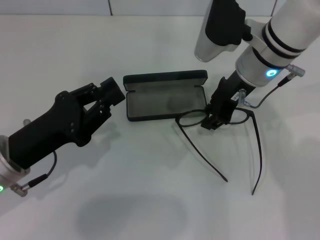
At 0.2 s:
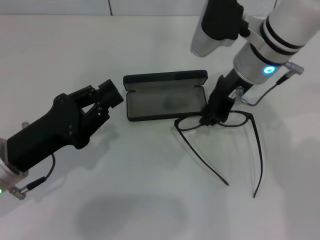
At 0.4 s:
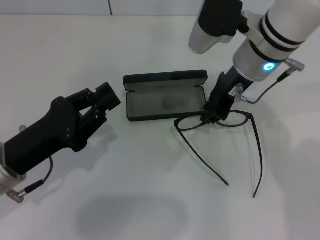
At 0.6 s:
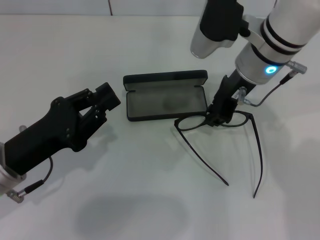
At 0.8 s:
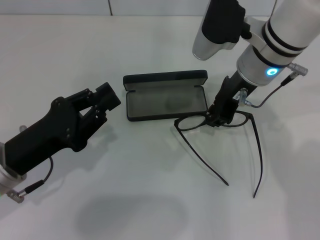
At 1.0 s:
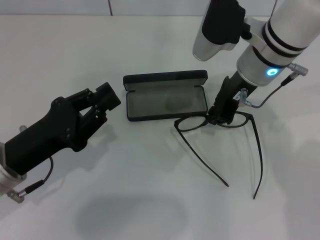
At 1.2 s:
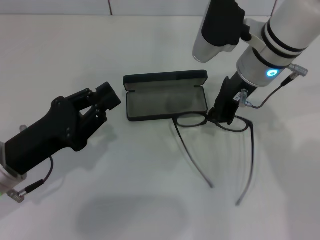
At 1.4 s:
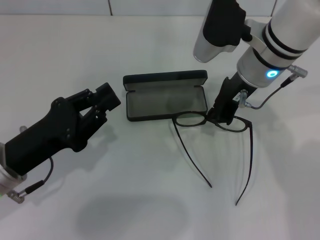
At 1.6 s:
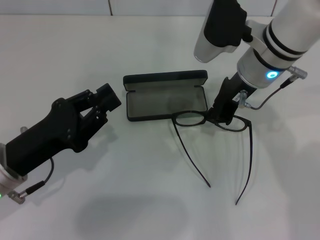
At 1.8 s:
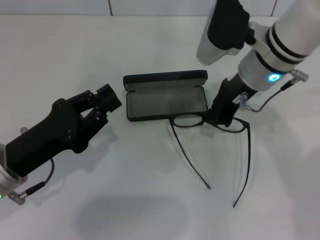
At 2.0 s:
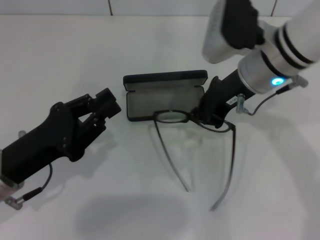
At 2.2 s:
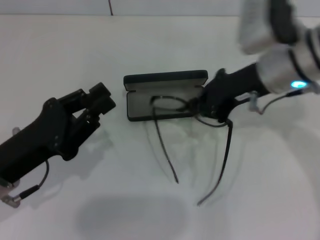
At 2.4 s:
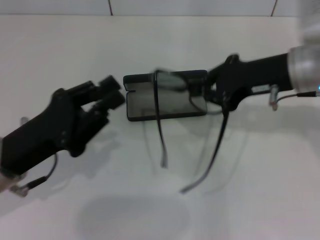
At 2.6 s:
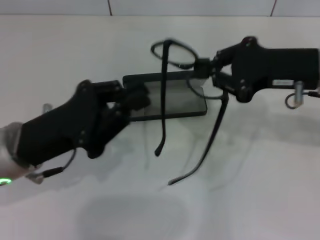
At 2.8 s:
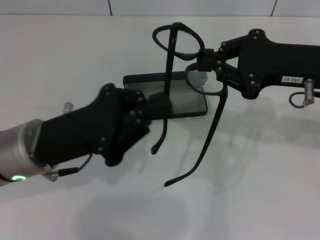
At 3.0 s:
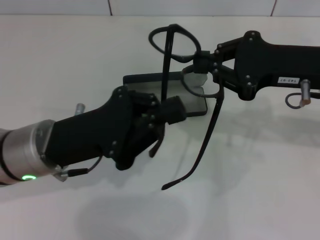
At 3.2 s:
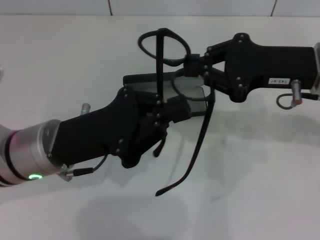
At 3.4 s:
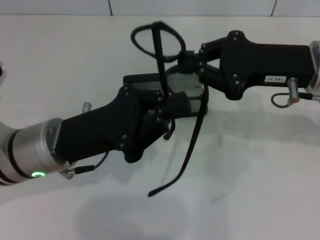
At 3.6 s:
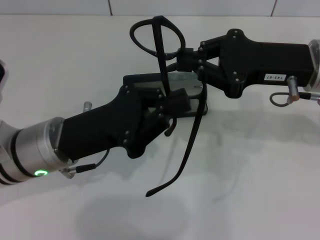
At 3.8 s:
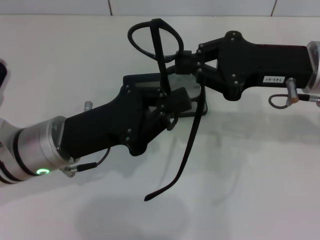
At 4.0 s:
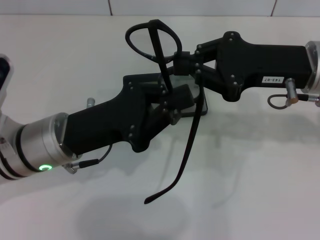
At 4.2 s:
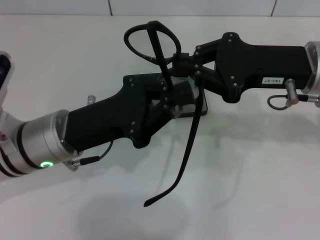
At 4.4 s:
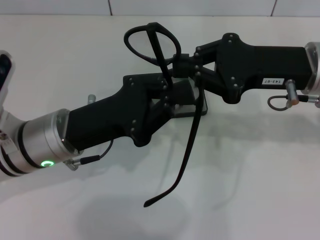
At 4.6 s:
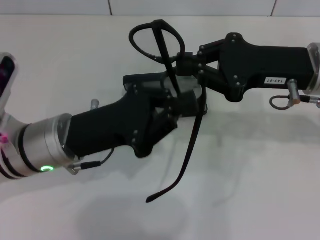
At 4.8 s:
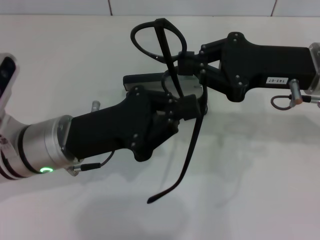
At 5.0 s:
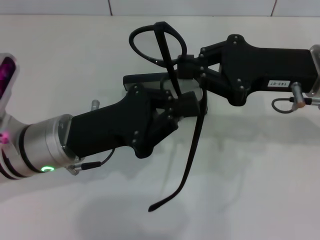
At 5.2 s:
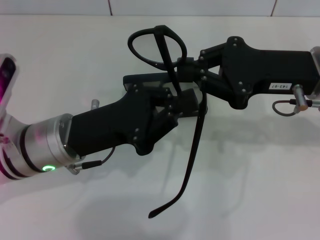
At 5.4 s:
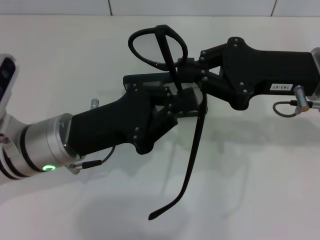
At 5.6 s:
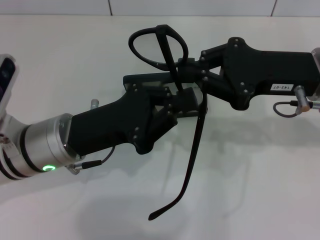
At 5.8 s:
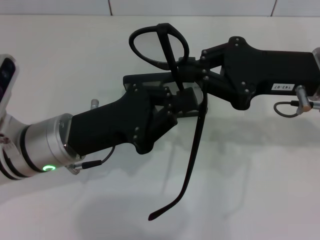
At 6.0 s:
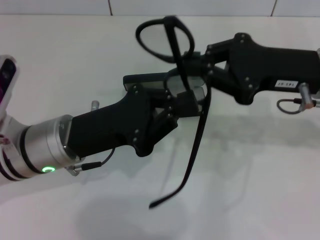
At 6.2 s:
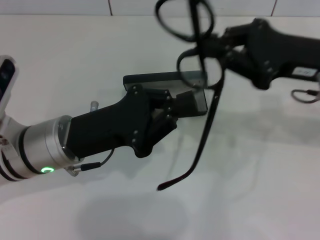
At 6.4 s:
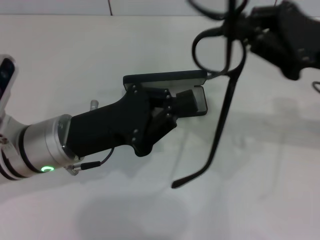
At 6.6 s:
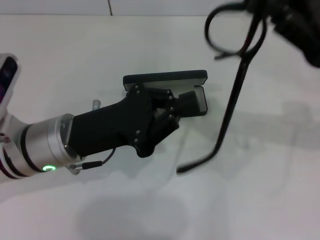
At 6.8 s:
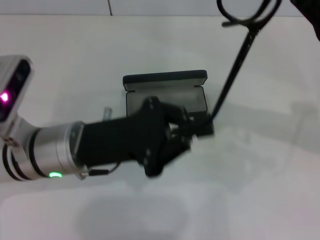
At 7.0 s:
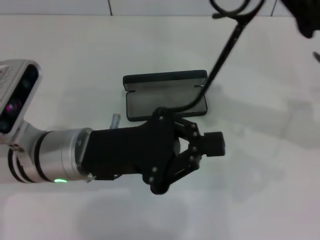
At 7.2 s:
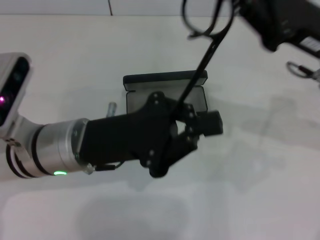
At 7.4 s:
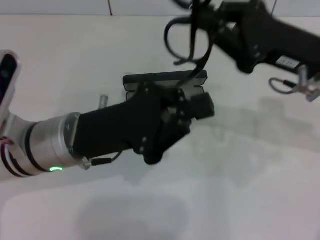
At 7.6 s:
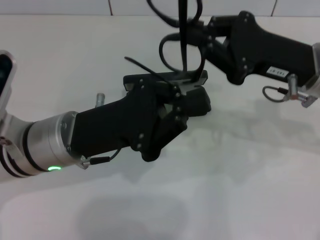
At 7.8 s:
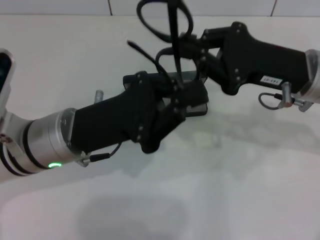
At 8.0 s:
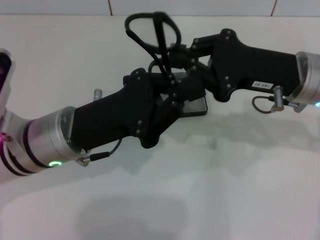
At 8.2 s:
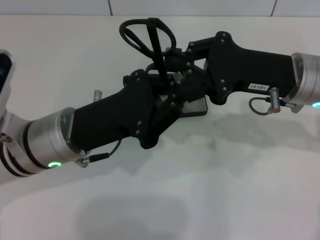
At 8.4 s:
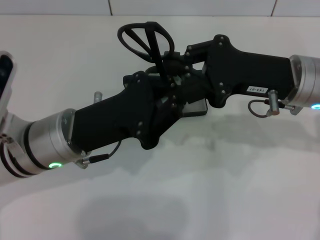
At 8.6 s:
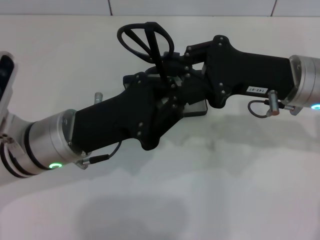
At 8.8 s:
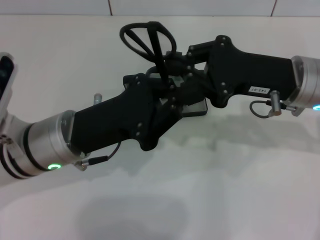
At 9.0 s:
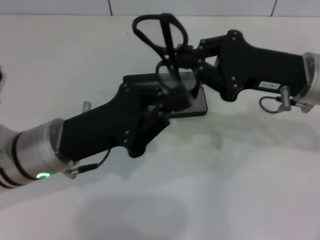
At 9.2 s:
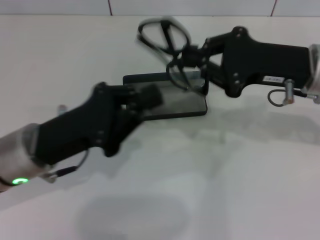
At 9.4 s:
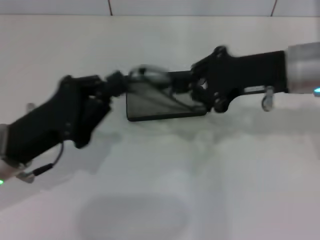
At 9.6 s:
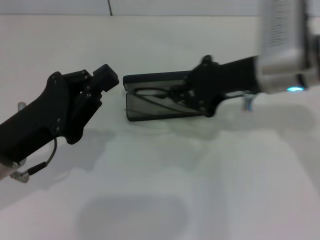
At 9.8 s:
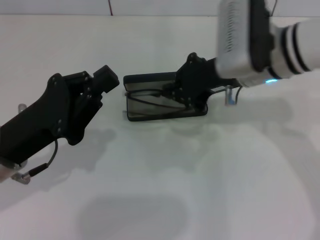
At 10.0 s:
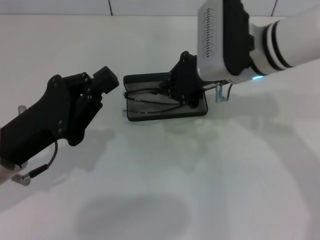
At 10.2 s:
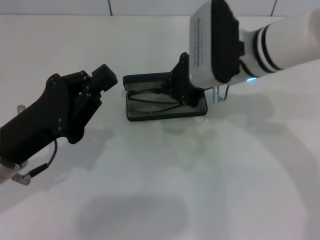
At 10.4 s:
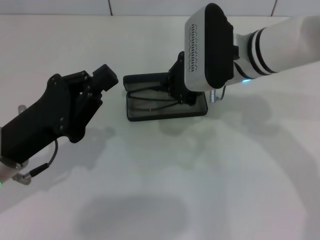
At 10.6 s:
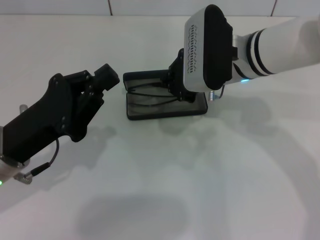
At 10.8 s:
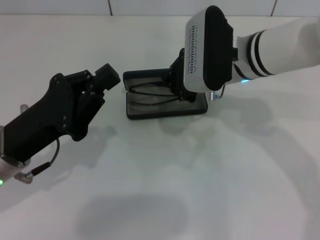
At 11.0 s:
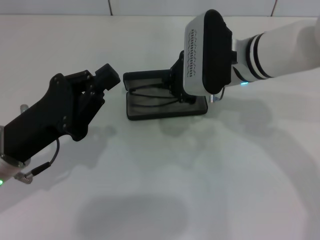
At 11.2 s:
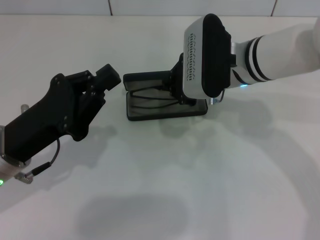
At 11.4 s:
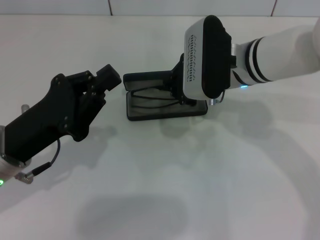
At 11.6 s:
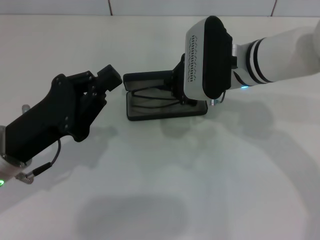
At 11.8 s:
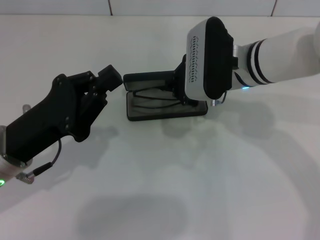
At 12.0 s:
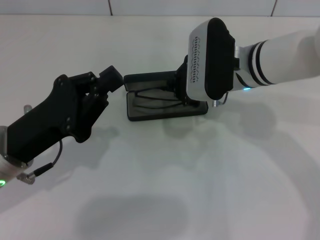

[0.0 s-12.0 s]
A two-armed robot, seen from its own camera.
Step, 1.4 to 8.8 s: Fold the frame with your left hand.
0.0 to 1.6 s: The right gripper closes.
1.6 to 3.0 s: The right gripper is displaced to the right and backward by about 15 cm, while the left gripper shifts roughly 5 cm to the right.
3.0 to 4.4 s: There are only small adjustments of the grippers.
4.4 to 6.0 s: Both grippers stay put.
9.0 to 10.4 s: The left gripper shifts some 5 cm to the left. The right gripper travels to the left by about 10 cm.
10.4 to 12.0 s: There are only small adjustments of the grippers.

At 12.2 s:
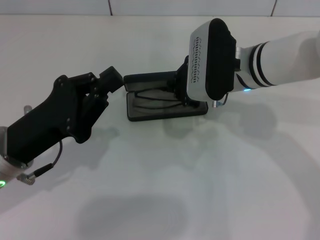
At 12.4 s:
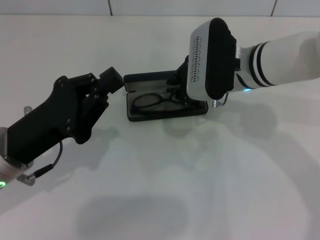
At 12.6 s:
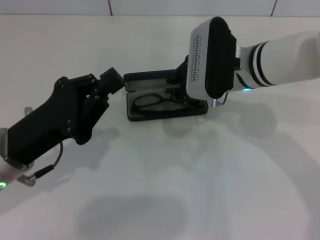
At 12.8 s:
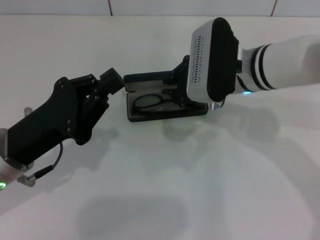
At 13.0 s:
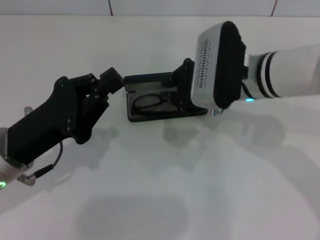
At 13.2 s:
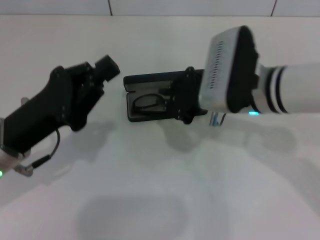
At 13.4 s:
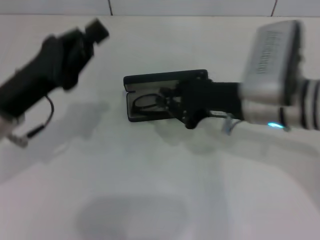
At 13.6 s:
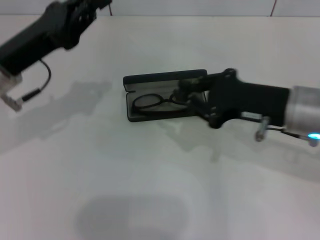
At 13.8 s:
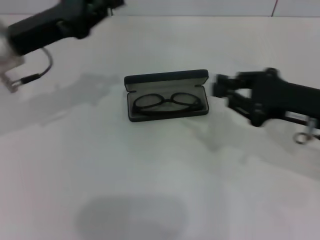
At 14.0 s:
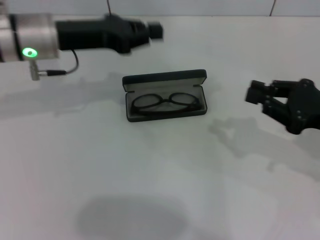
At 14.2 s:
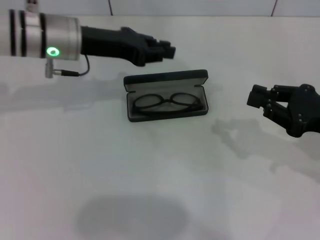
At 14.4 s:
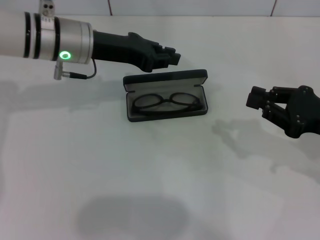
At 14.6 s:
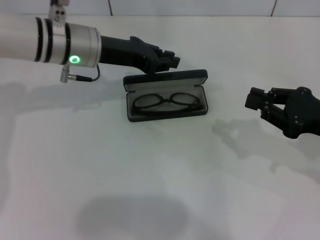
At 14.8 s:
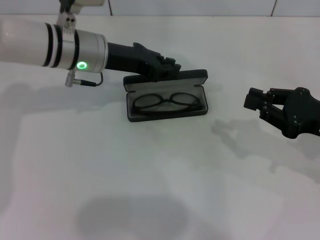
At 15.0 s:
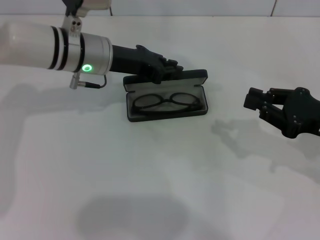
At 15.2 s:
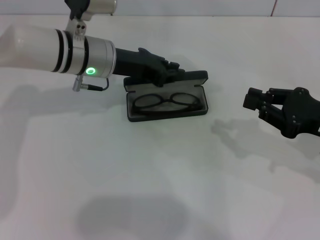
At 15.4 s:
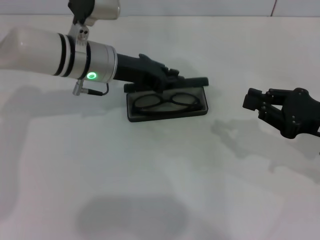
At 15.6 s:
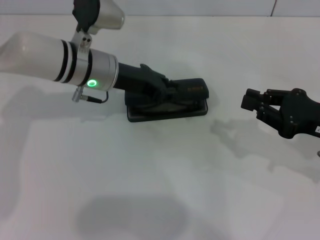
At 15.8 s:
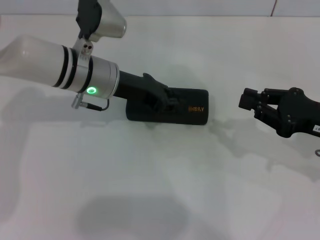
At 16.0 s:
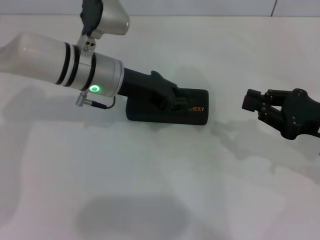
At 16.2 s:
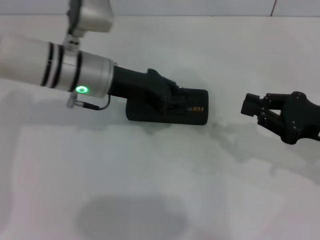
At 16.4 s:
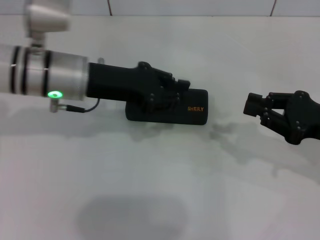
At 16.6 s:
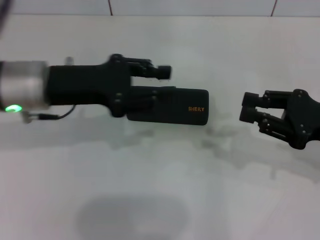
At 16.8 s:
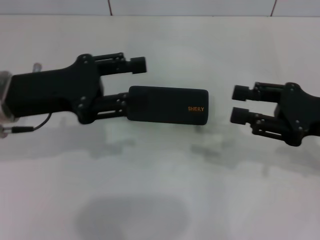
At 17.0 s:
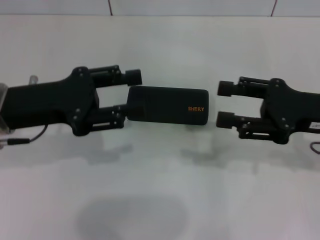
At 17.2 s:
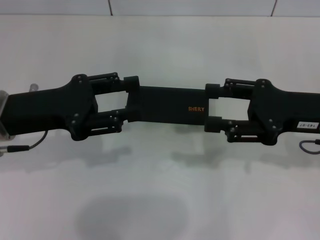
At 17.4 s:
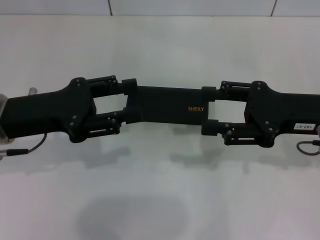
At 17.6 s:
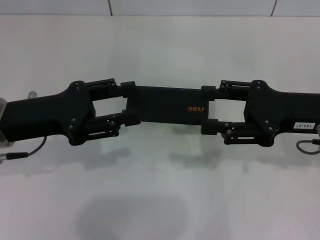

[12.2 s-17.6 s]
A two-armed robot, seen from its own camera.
Step, 12.6 to 15.6 s: Close the glasses case with your left hand.
12.2 to 13.6 s: The right gripper travels to the right and backward by roughly 15 cm; the left gripper goes approximately 10 cm forward and upward.
13.6 to 15.0 s: The left gripper heads to the right and forward, covering some 15 cm; the right gripper heads to the right, covering approximately 10 cm.
15.0 to 16.2 s: The grippers stay close to where they were, moving slightly.
16.2 to 17.6 s: The right gripper moves roughly 5 cm, and opens its fingers. Meanwhile the left gripper shifts roughly 15 cm to the left and backward, and opens up.

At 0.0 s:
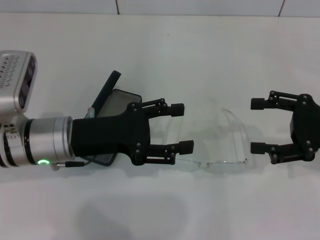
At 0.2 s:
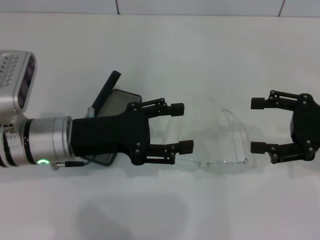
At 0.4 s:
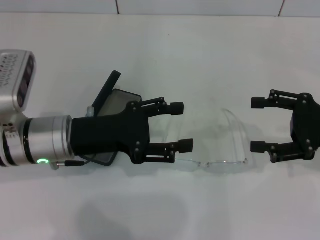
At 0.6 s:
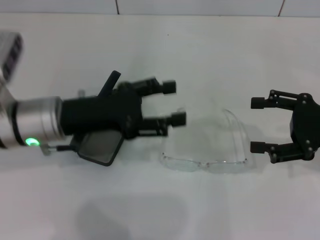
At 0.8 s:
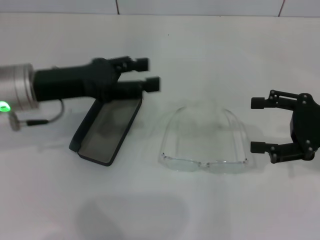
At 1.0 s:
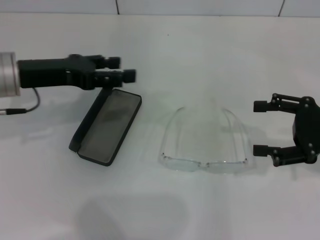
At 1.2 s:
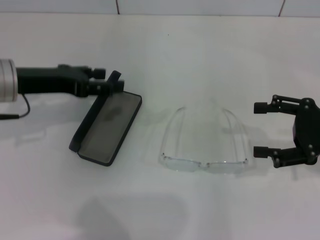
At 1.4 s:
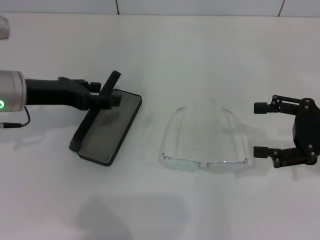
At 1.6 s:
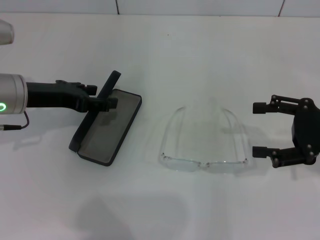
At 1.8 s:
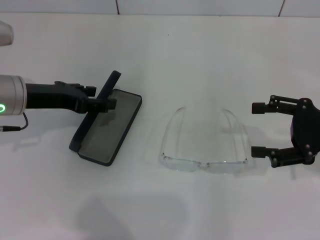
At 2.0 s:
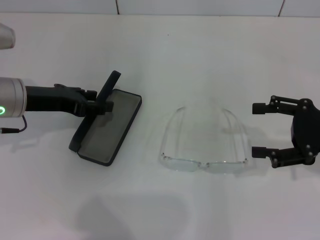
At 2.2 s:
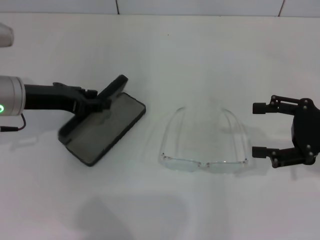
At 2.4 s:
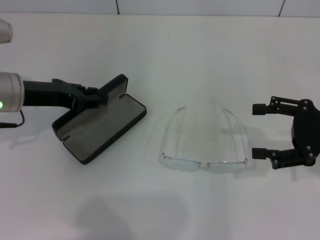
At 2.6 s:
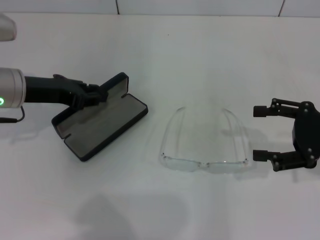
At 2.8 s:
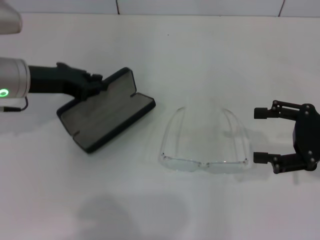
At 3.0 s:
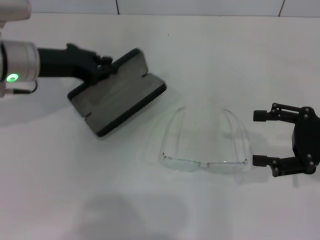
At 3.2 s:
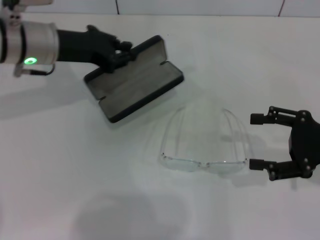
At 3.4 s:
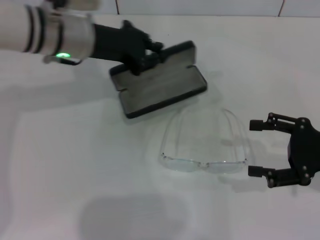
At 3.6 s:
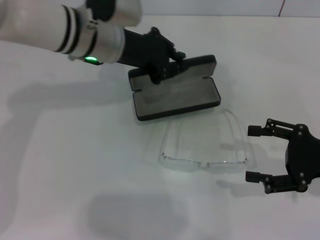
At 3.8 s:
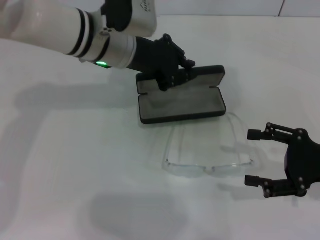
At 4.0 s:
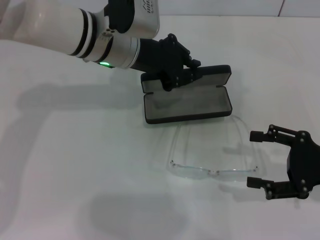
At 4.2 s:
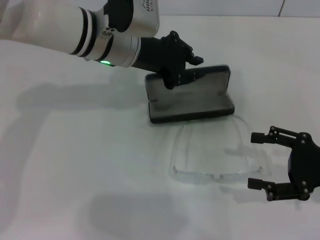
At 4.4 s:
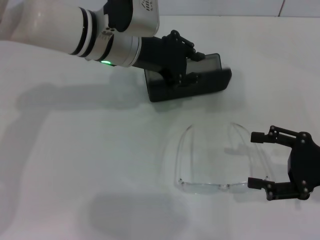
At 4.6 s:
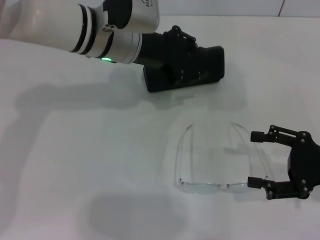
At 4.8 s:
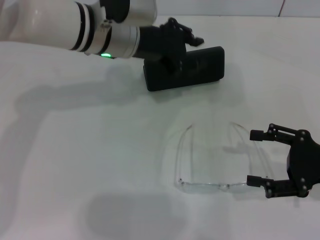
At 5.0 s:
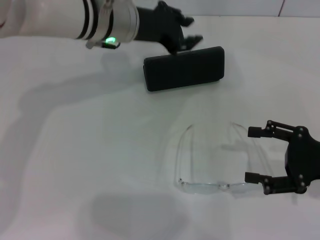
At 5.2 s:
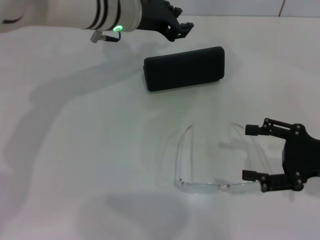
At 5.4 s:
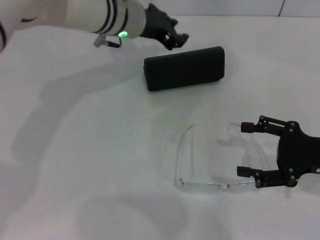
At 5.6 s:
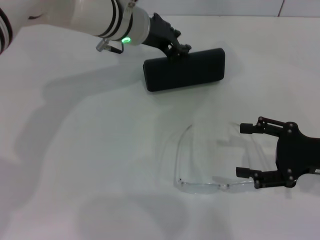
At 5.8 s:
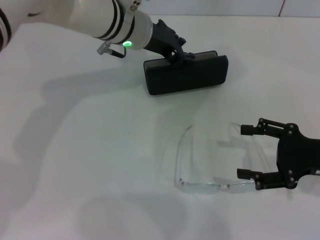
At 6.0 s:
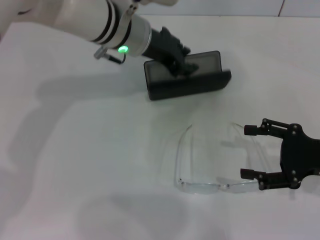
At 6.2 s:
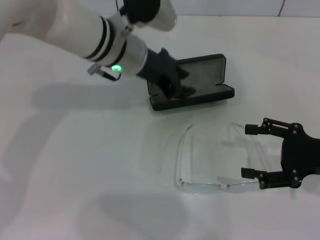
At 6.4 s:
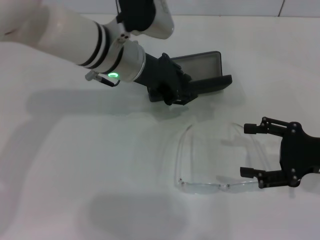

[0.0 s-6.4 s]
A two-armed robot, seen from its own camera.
Step, 0.0 to 2.6 s: Grab the glasses case with your left hand.
0.0 to 1.6 s: The left gripper is displaced to the left and forward by roughly 10 cm.
1.6 to 3.2 s: The left gripper heads to the right and forward, covering about 5 cm, and closes its fingers.
3.2 to 4.8 s: The left gripper heads to the right, covering approximately 10 cm.
